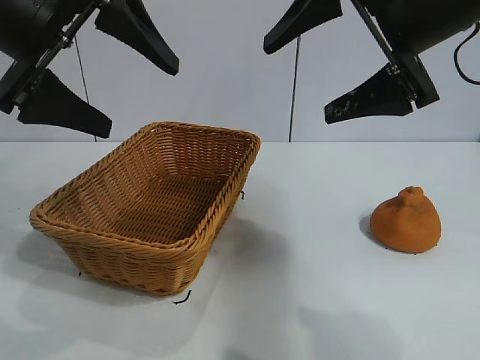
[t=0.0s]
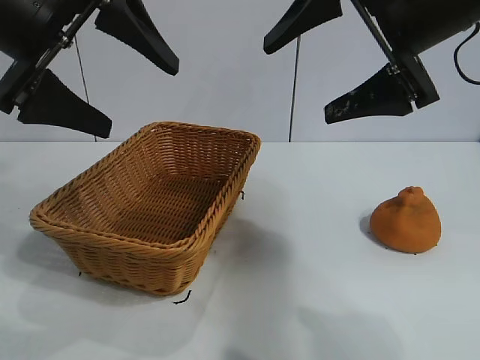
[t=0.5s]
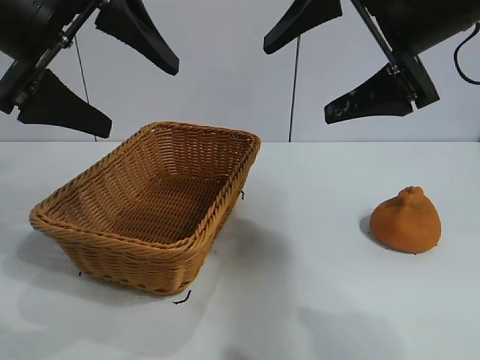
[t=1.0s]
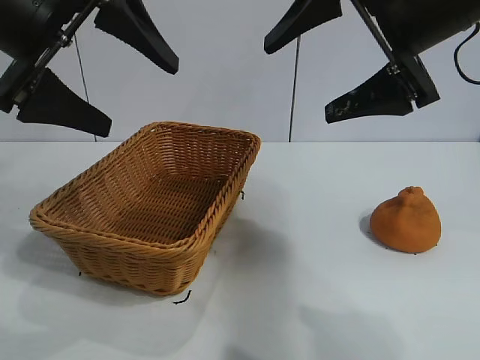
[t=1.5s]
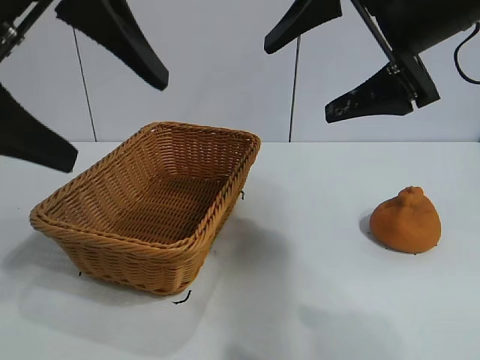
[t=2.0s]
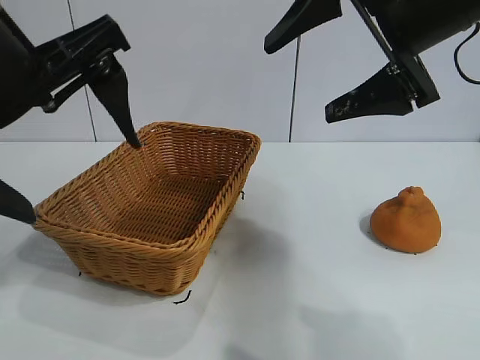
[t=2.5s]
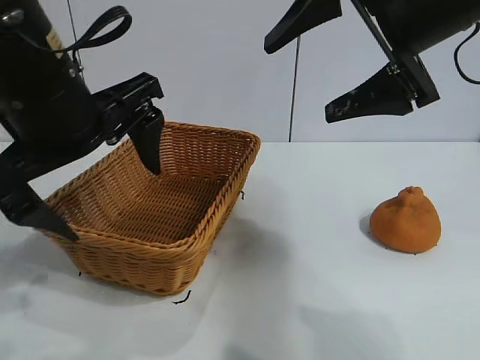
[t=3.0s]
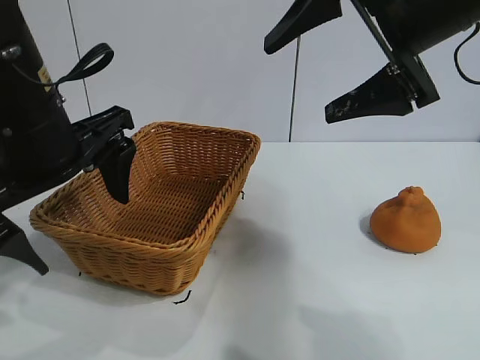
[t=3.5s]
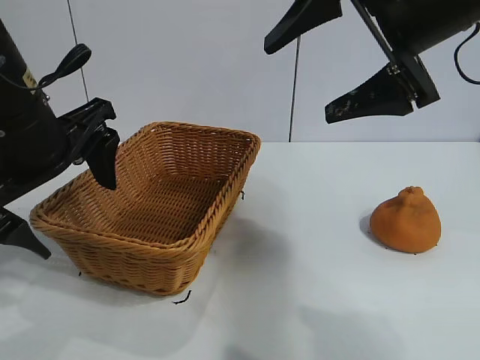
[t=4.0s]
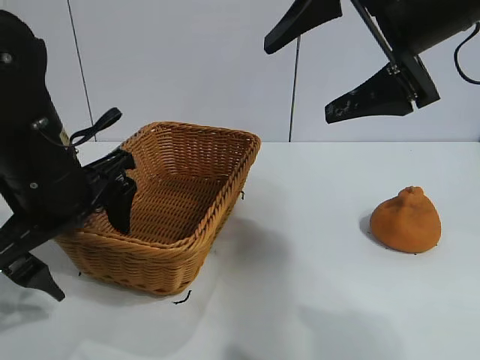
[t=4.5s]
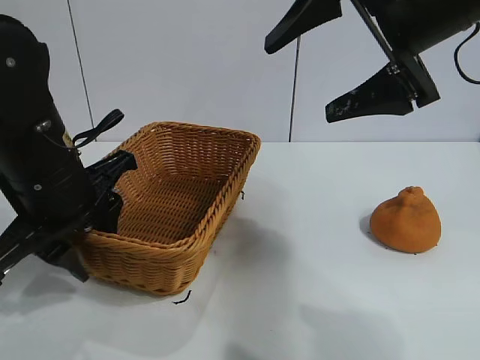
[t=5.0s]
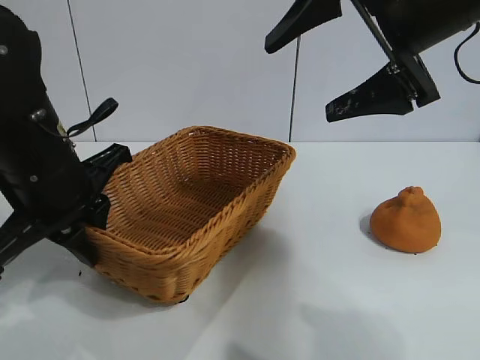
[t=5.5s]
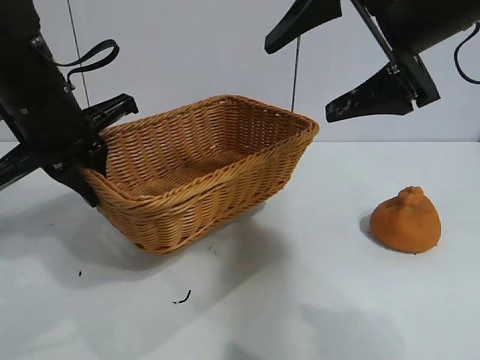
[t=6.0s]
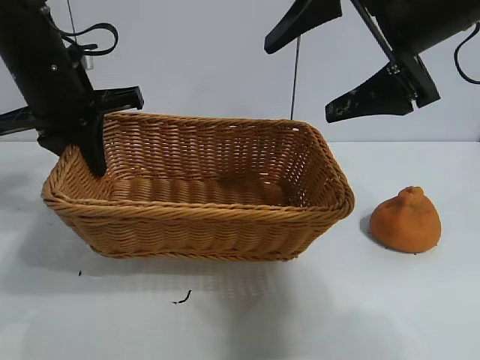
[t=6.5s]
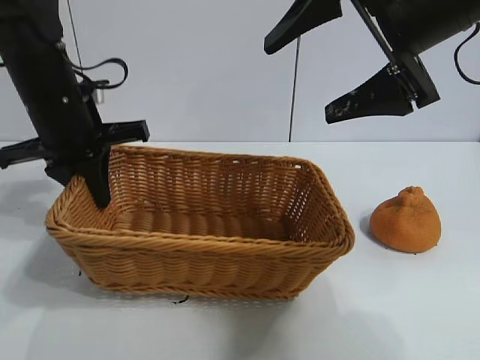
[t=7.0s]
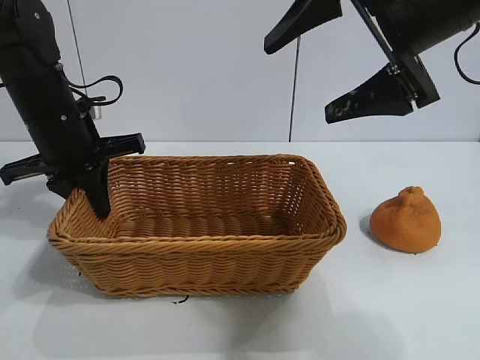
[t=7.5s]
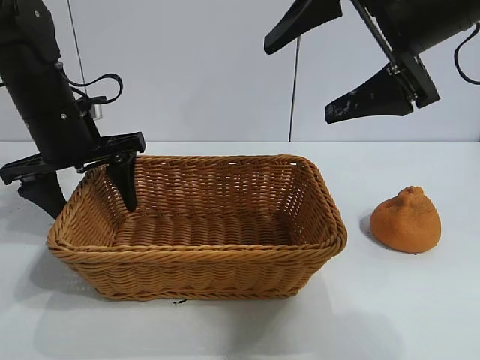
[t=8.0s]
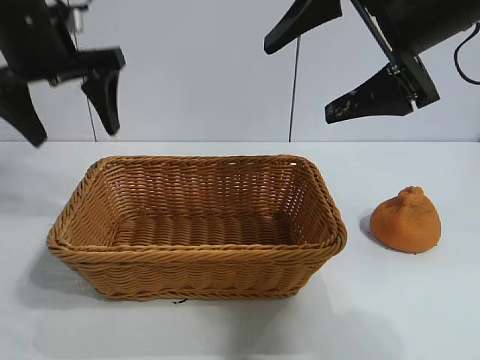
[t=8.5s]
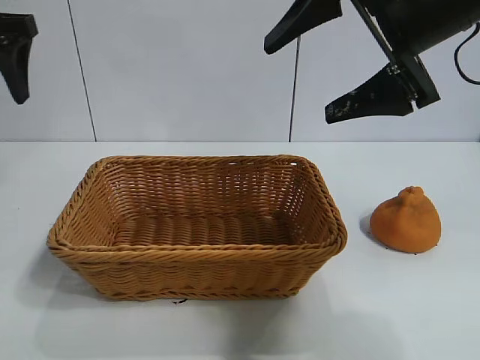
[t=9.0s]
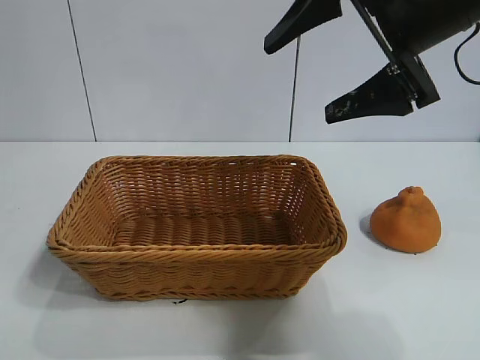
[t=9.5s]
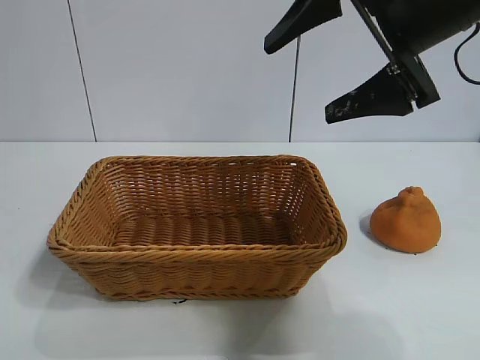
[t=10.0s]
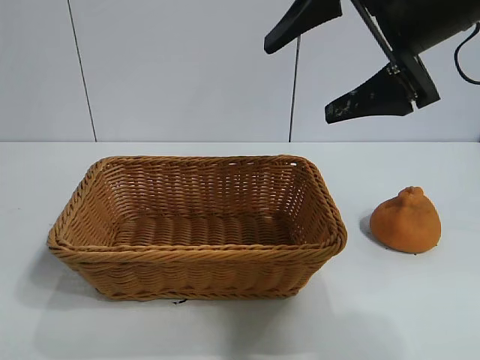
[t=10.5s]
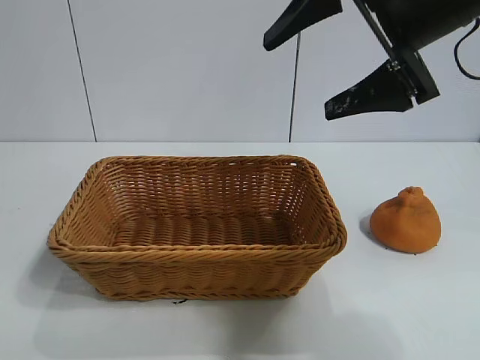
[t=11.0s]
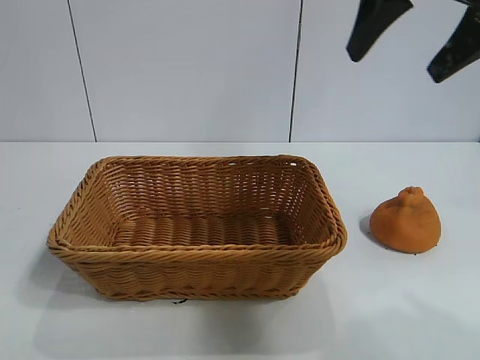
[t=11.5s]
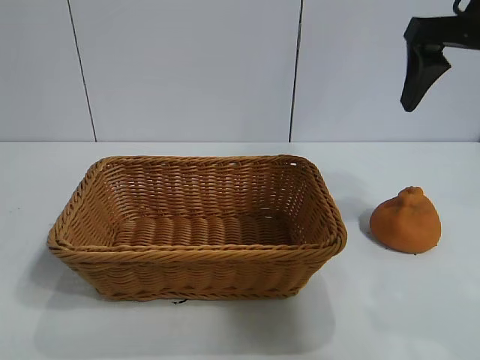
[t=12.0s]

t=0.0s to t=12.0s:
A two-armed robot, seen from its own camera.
Task of the whole recording: pick up the orange and put it into the basket.
Step, t=2.0s to t=5.0s: Grasp the basket with left gripper.
Step, t=5.5s to t=8.0s: Place the basket in the center of view with left gripper.

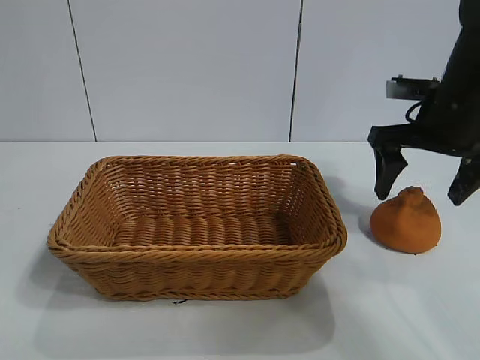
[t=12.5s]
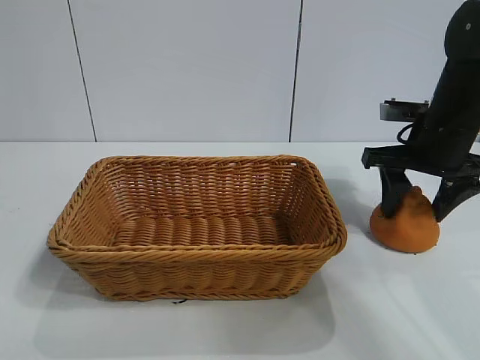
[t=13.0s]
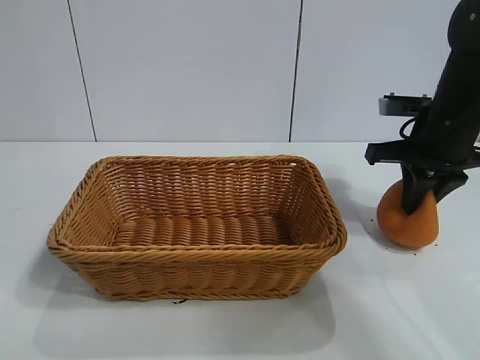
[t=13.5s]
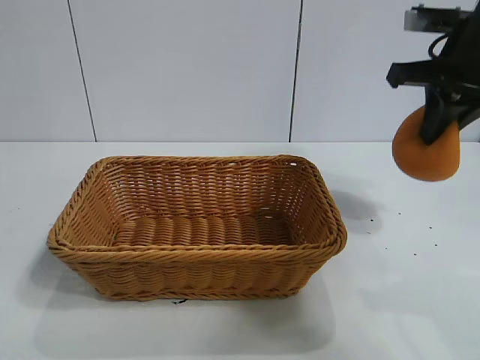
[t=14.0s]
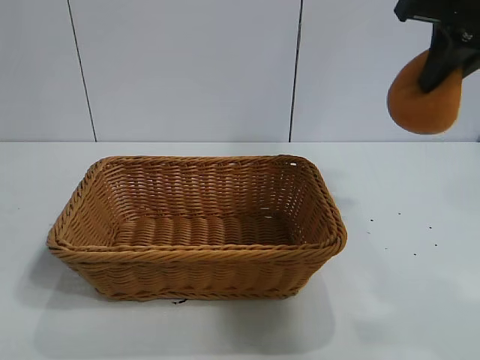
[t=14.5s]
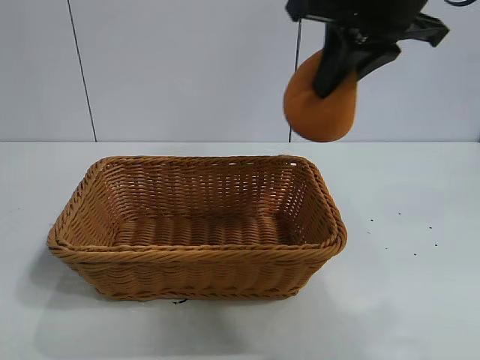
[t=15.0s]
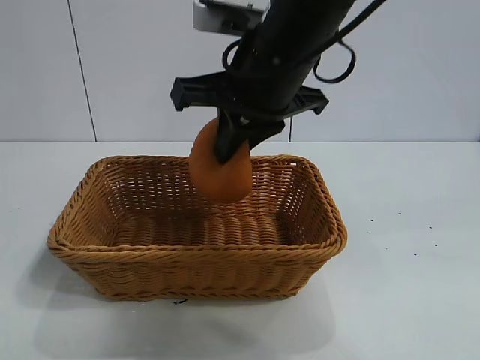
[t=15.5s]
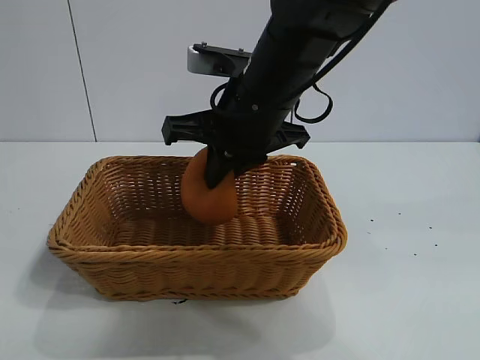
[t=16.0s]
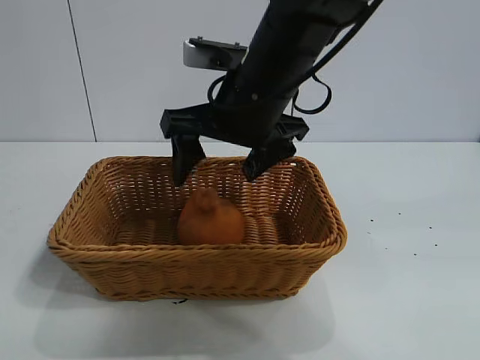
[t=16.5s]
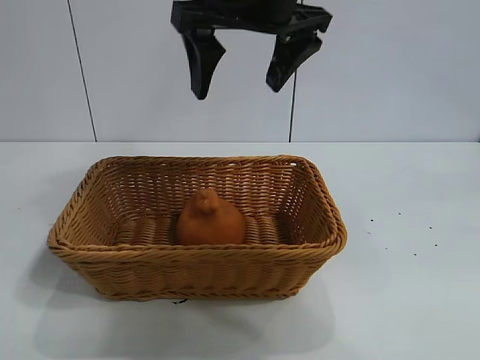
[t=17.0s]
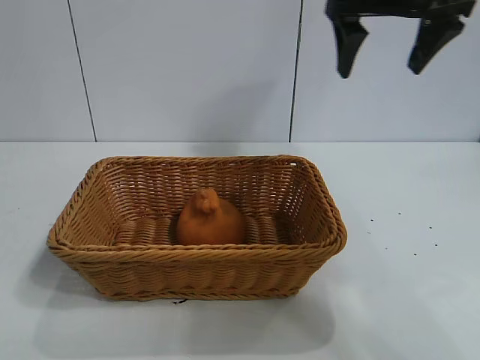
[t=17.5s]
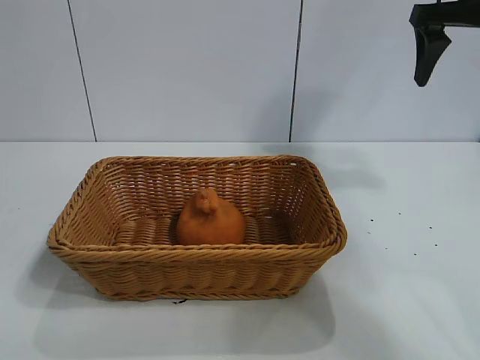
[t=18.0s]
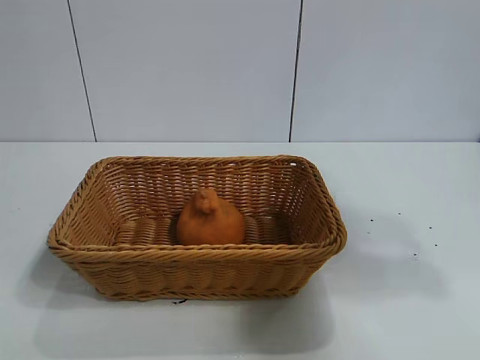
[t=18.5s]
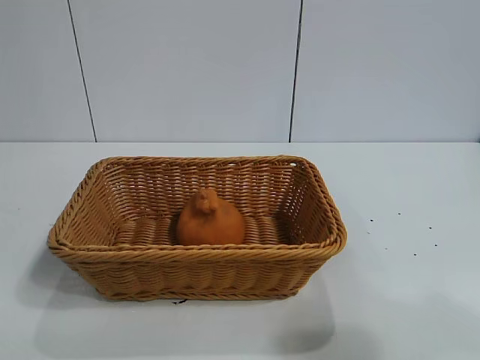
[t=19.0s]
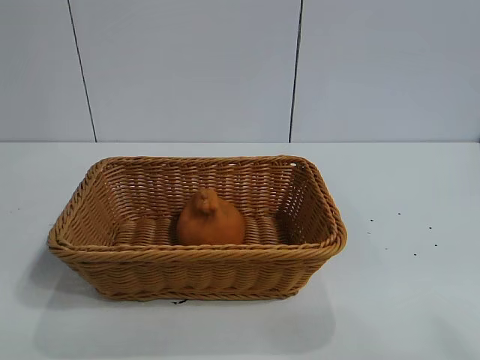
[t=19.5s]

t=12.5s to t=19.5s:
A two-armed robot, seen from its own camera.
Task of the whole recording: pick up the orange and put it into the basket.
Step, t=14.0s to t=16.0s: Place the orange in the basket with right gripper.

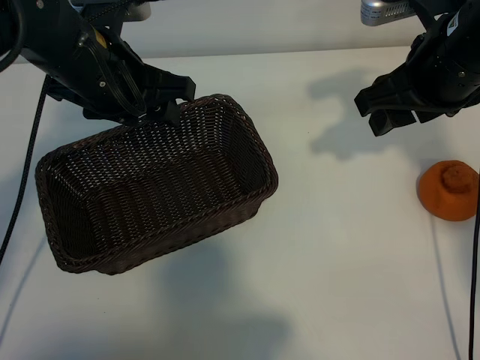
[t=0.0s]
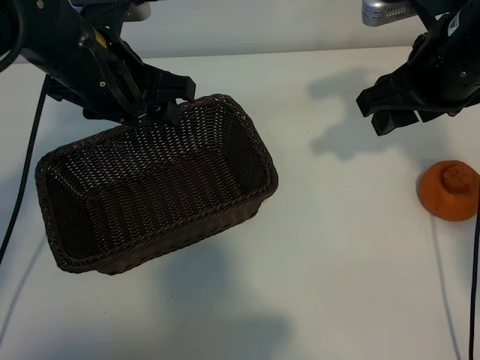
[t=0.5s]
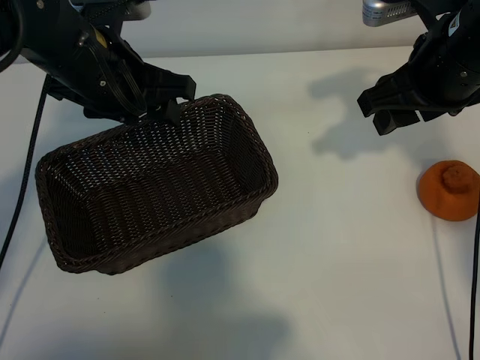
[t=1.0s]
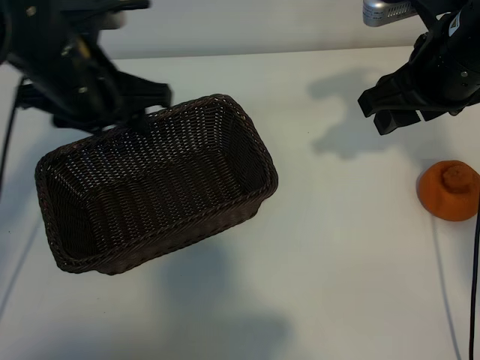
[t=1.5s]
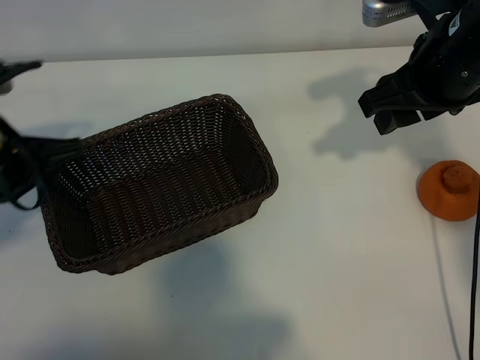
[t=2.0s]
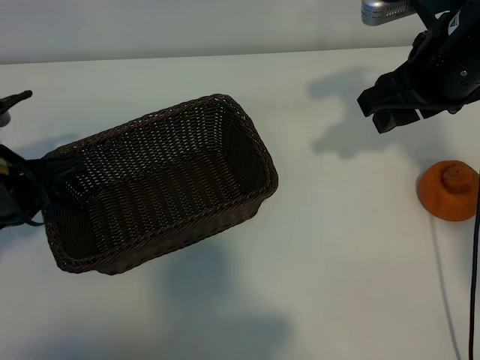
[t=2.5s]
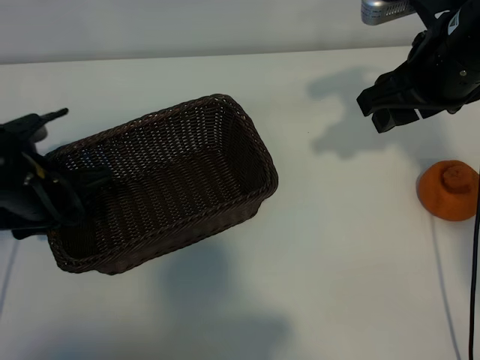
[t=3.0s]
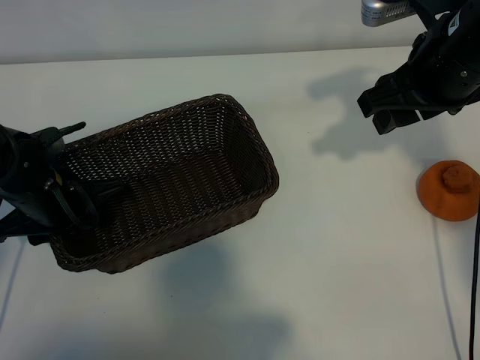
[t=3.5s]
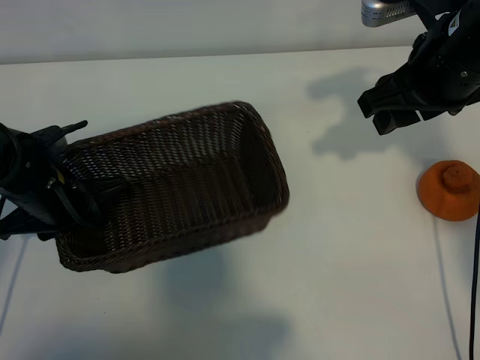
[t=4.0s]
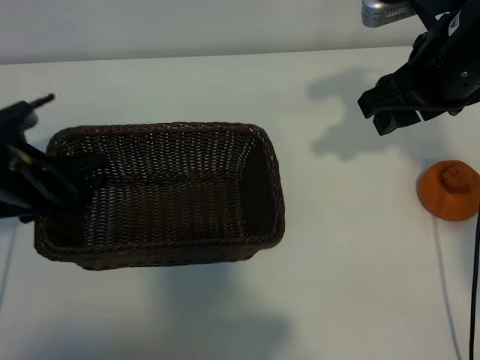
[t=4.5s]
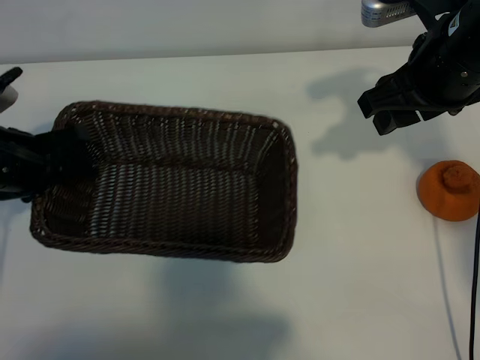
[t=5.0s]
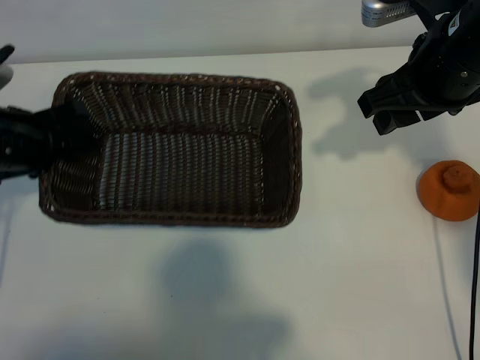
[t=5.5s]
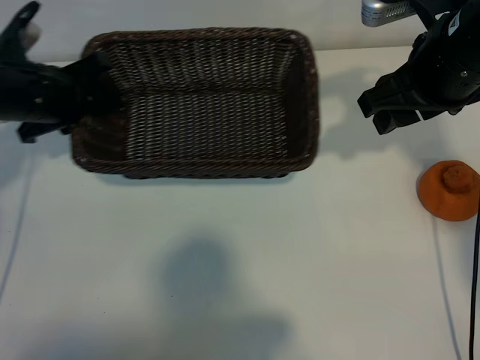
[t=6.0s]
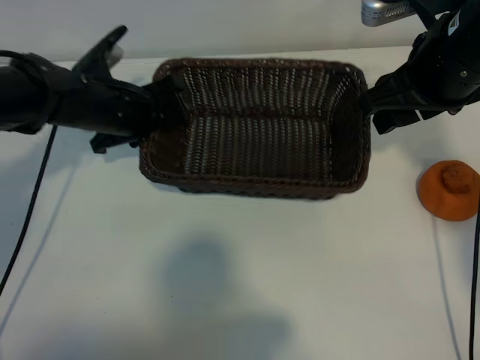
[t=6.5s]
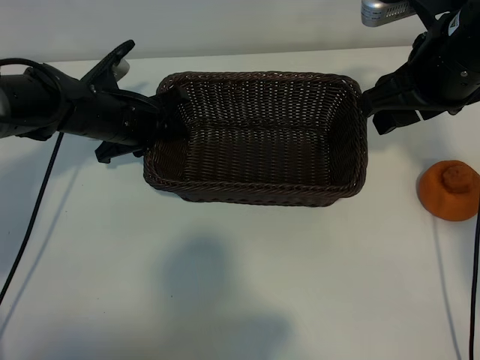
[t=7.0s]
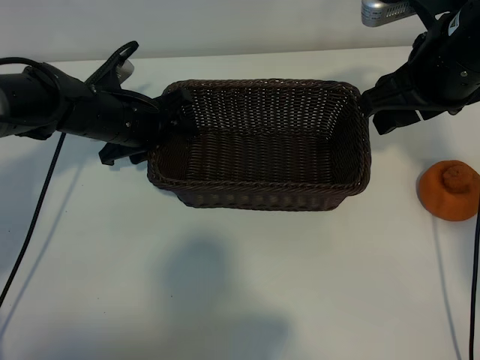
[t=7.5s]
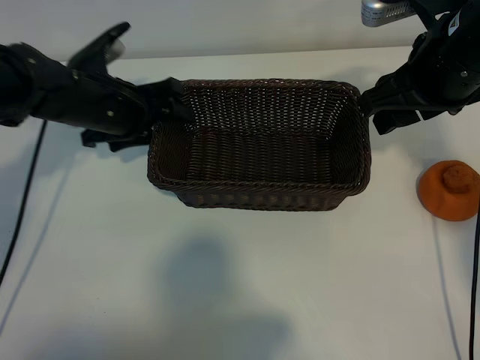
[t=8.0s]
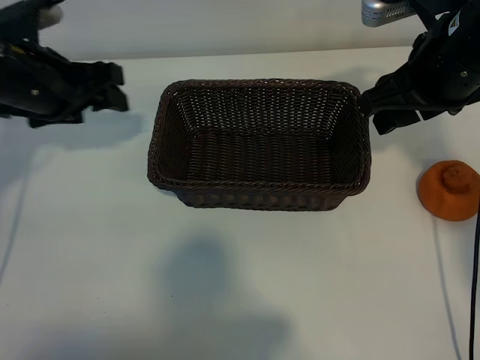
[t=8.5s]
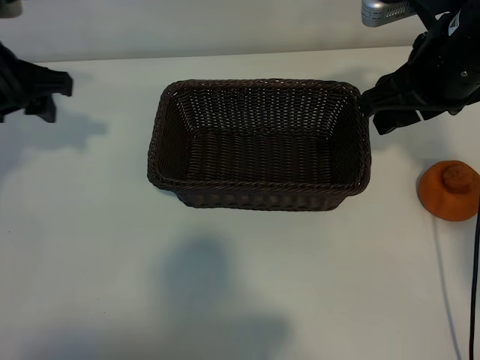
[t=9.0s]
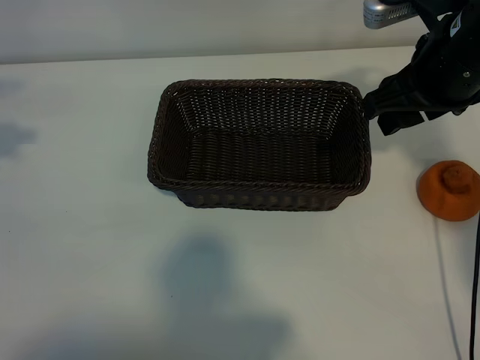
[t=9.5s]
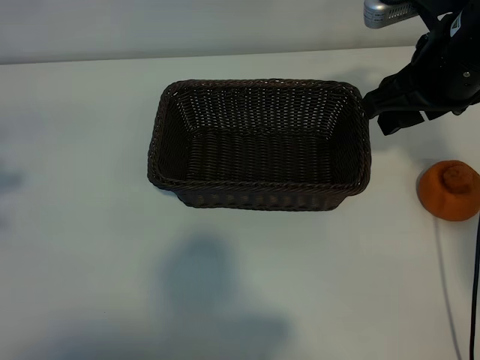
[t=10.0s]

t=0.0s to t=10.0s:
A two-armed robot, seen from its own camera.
Task of the whole recording: pick up the orange and put it into the basket.
Step, t=0.0s to t=3.5s: Grasp the basket with left gripper.
Step, t=4.5s to t=7.5s: Place the basket in the center of view with left gripper.
